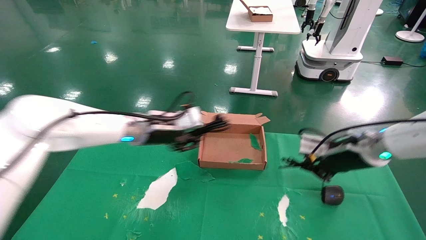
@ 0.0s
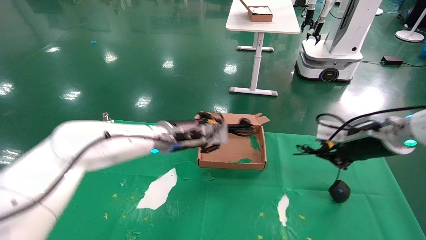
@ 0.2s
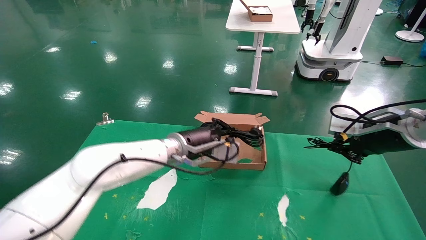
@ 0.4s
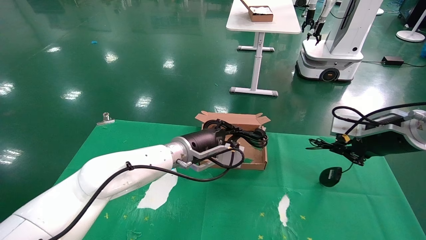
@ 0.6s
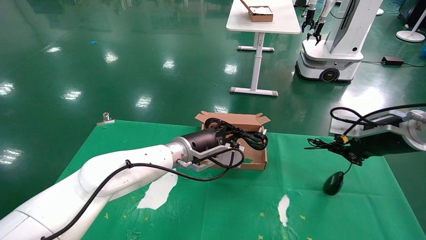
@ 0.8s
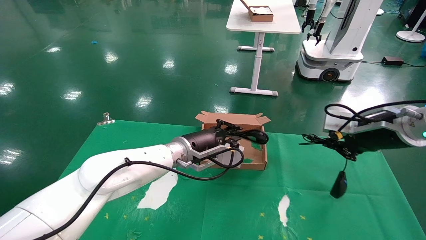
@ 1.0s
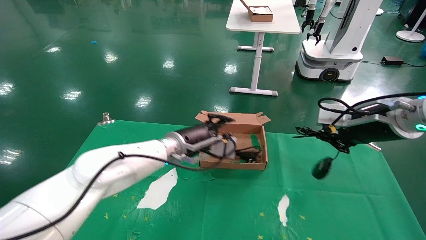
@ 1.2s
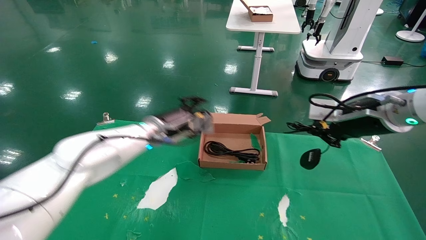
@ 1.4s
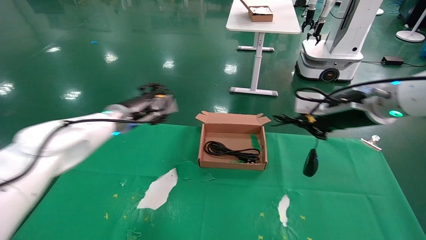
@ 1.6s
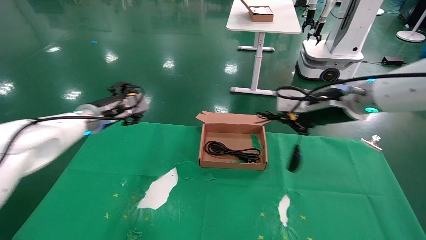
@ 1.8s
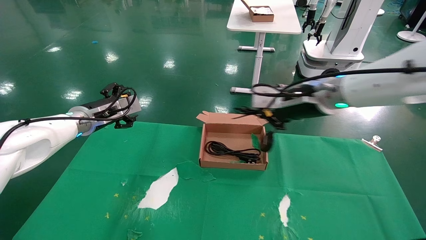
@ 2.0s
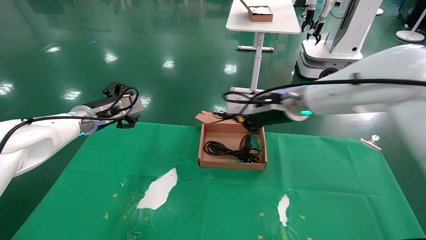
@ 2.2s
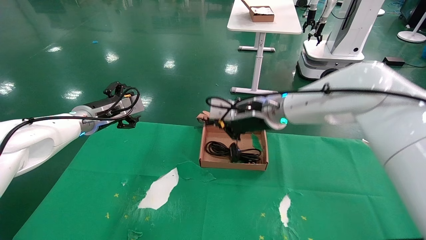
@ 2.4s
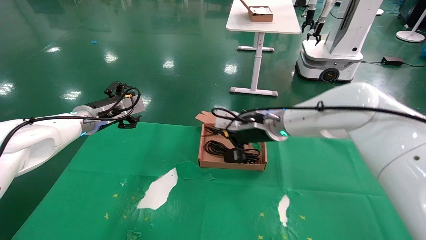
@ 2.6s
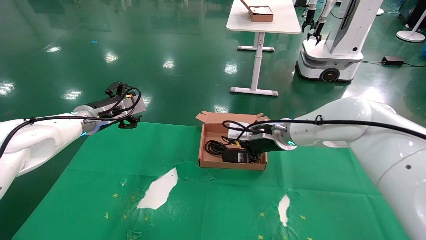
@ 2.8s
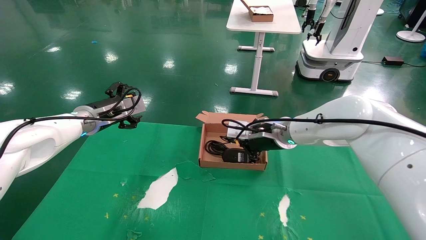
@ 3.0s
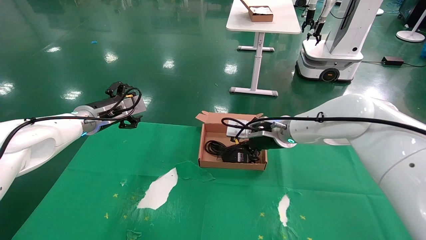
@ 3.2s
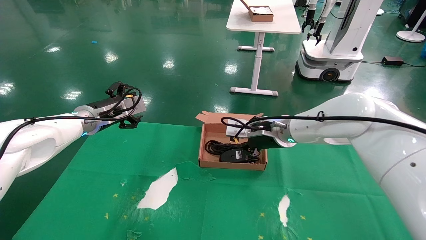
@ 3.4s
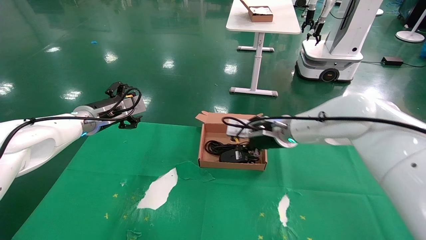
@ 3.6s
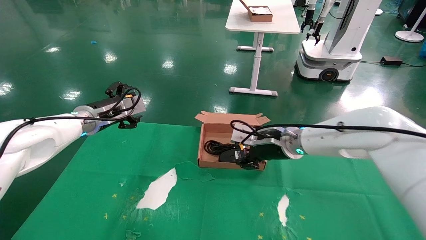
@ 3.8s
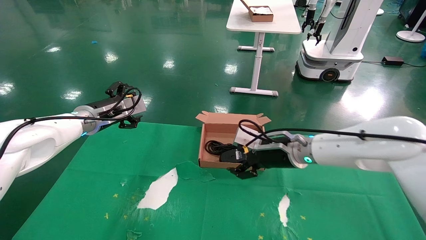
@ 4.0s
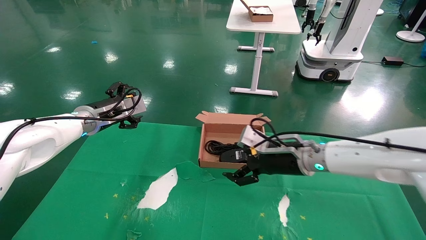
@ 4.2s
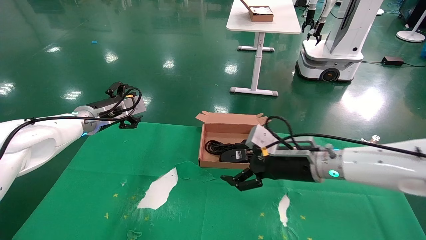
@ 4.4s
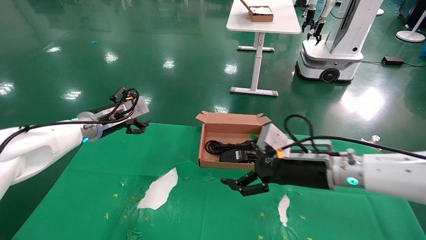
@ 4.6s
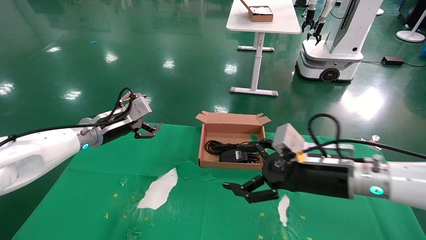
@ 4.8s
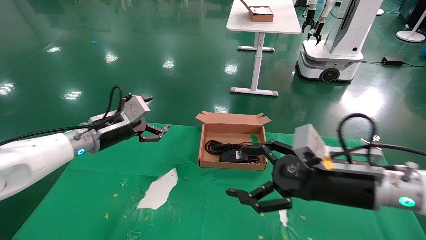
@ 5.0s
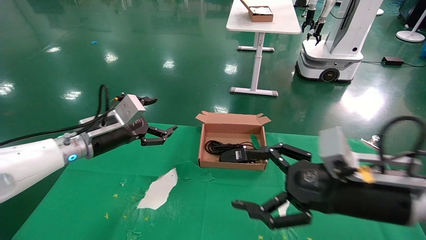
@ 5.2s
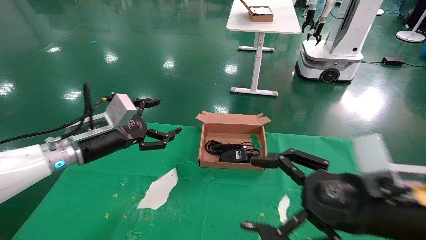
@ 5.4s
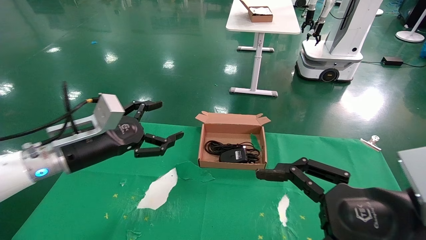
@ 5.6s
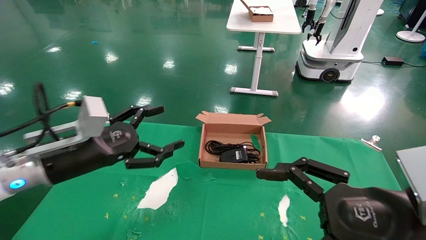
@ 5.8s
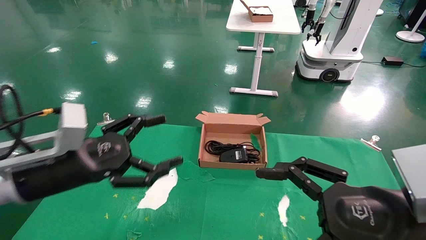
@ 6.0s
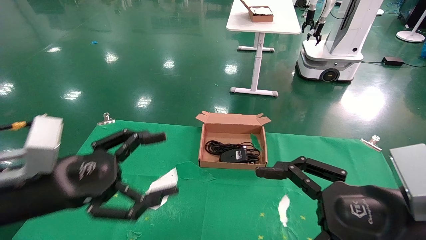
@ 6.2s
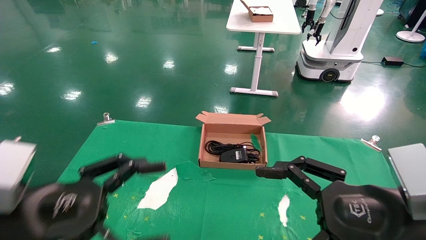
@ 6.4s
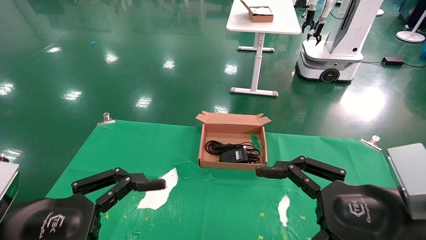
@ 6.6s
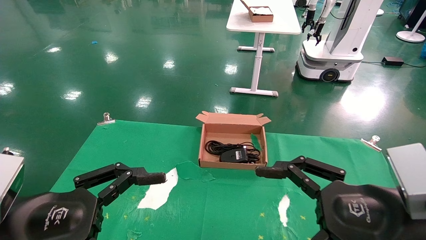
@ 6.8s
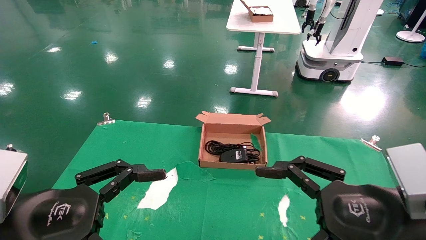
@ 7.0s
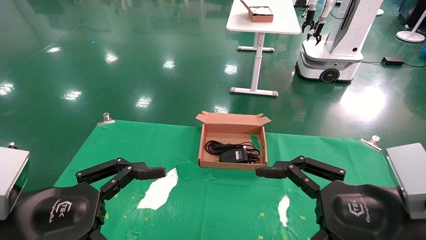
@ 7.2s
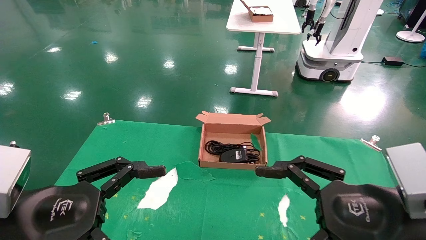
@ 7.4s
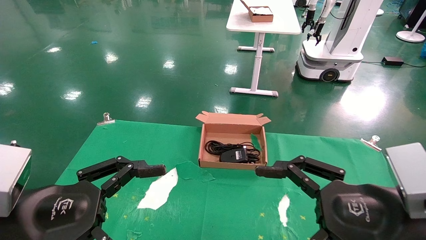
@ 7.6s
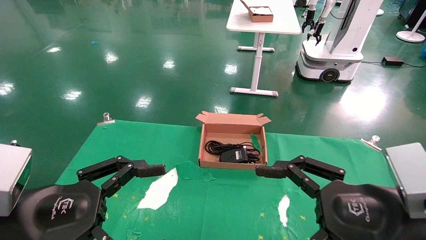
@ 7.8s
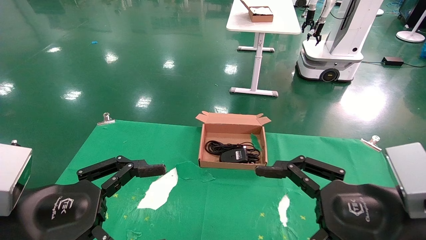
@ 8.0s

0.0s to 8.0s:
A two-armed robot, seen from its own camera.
Step, 0.0s to 4.4s: Place the mouse and power cord into the box.
0.0s to 1.6s: The left gripper shifts approximately 5 cm to the left, and opens. Meanwhile the right gripper moves upward, some 10 cm.
1.6s to 3.2s: The left gripper is displaced to the left by some 10 cm, and opens its fingers, while the right gripper shifts about 20 cm to the left, forward and downward.
3.2s to 4.8s: The right gripper shifts about 15 cm backward and to the right, and opens its fingers.
4.8s to 6.4s: The right gripper goes approximately 15 cm backward, while the left gripper shifts approximately 25 cm backward.
6.4s to 8.0s: The grippers make only small movements.
